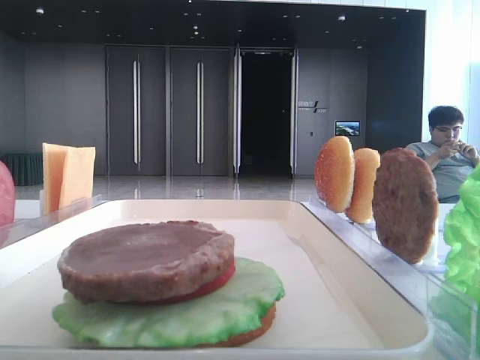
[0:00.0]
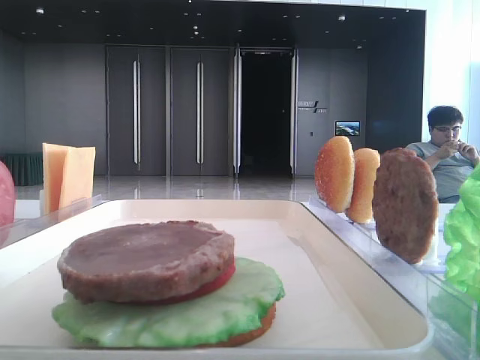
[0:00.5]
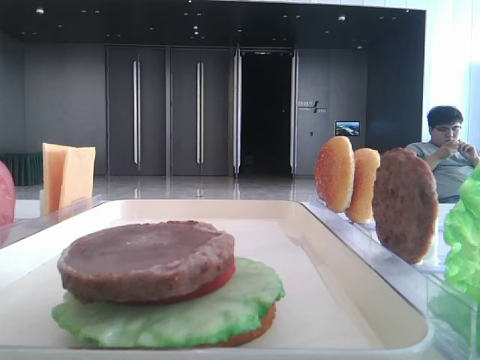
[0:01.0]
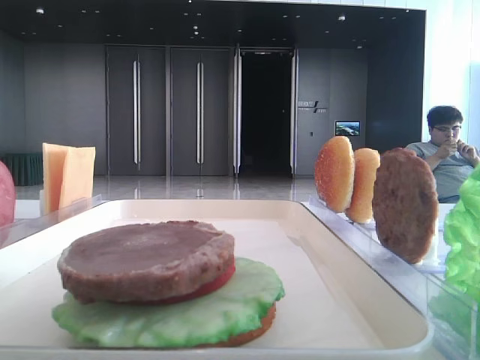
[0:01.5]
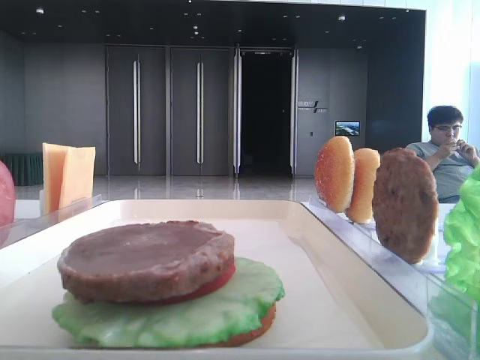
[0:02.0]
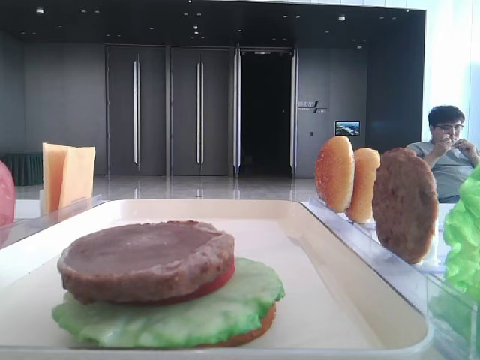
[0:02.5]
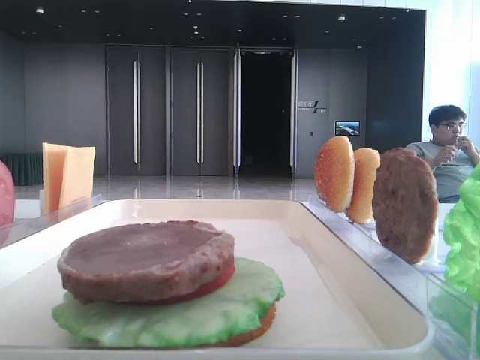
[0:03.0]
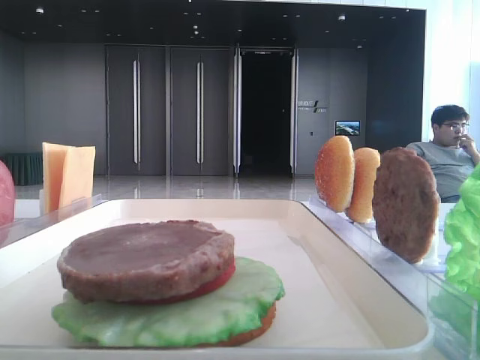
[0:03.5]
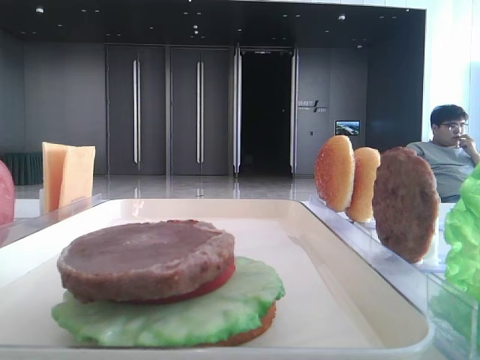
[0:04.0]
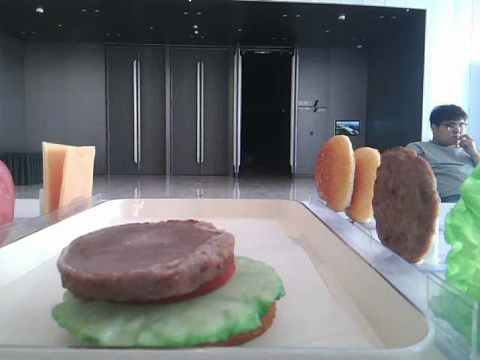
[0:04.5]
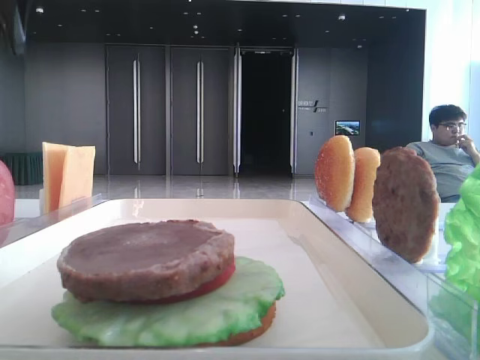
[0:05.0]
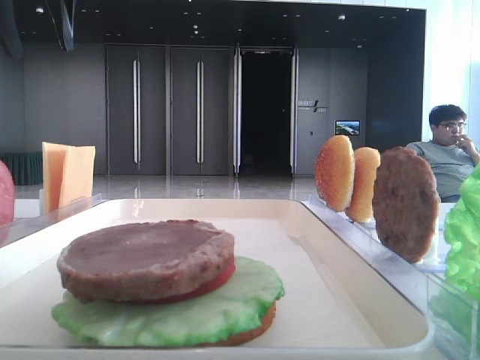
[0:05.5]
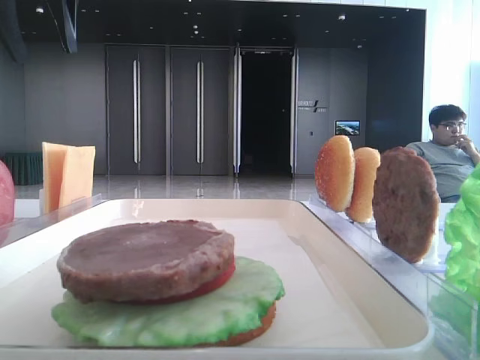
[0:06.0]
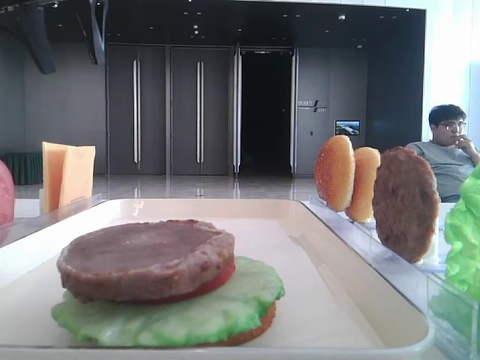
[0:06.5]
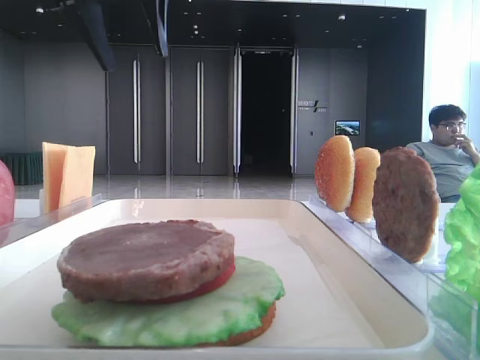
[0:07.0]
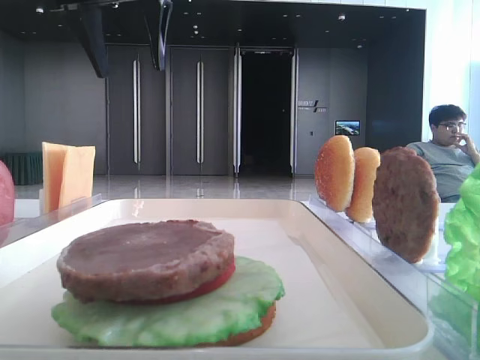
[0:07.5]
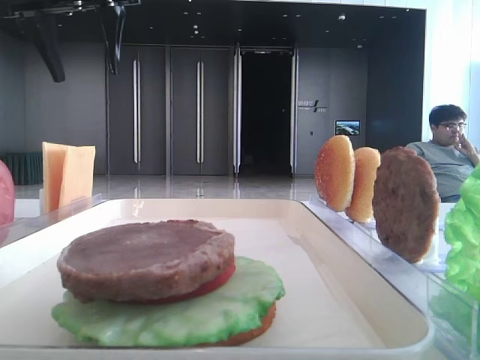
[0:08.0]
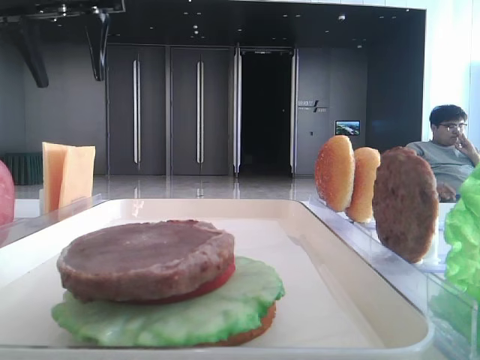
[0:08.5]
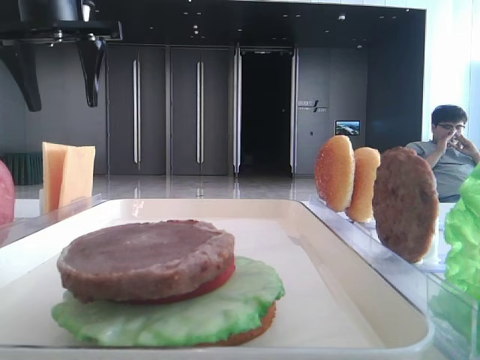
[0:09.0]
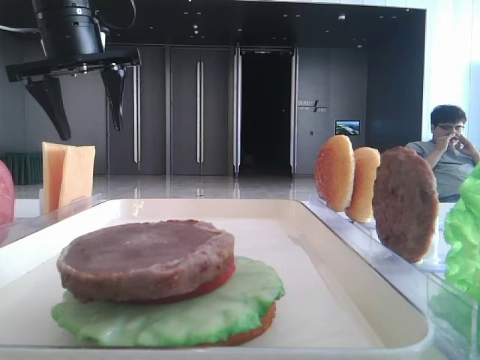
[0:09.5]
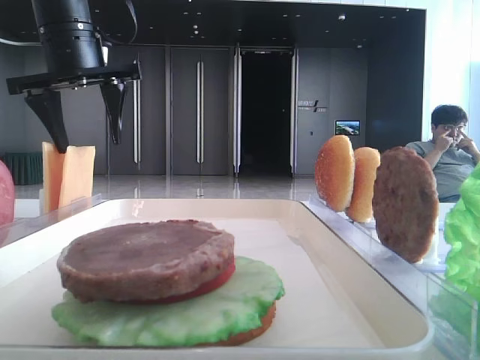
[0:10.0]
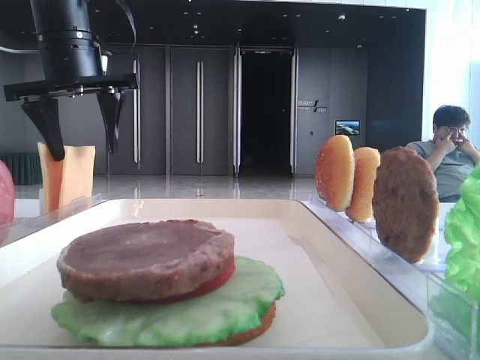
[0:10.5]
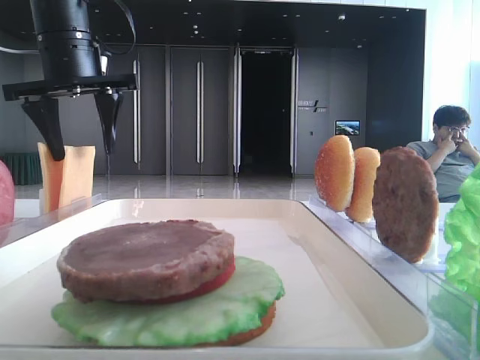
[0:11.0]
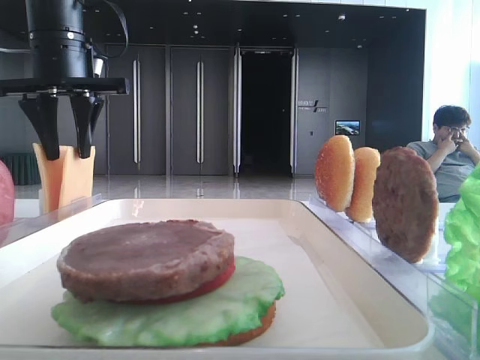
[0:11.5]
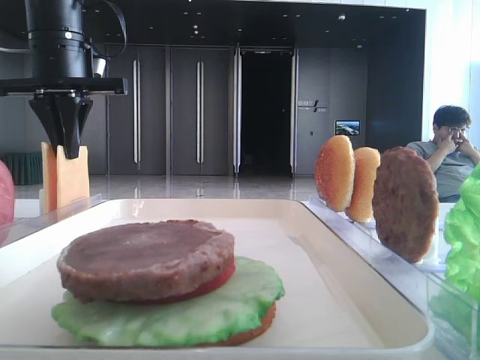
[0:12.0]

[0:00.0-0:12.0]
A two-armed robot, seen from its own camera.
0:02.0 to 0:04.0: The left gripper heads forward, covering approximately 35 cm.
0:06.0 to 0:08.0: The left gripper goes about 5 cm to the right.
0:08.0 to 0:10.0: The left gripper travels downward by approximately 10 cm.
0:10.0 to 0:12.0: The left gripper closes.

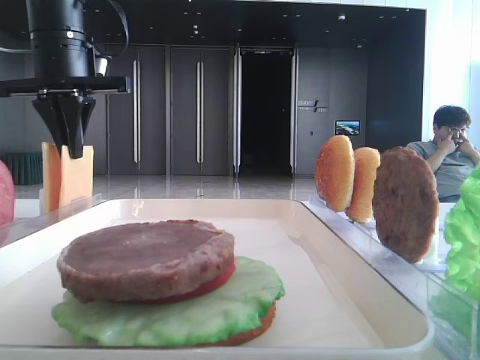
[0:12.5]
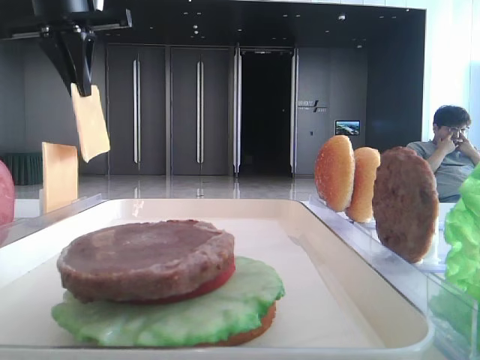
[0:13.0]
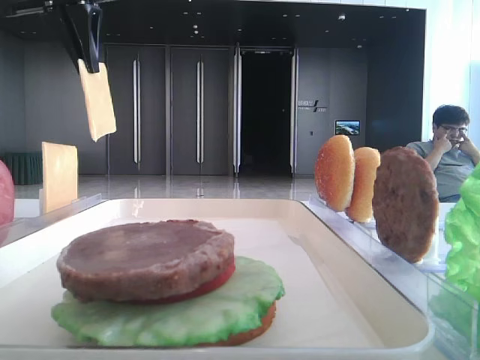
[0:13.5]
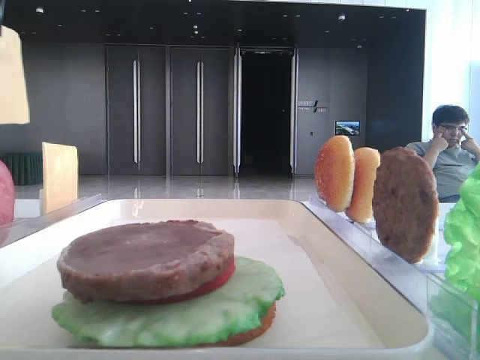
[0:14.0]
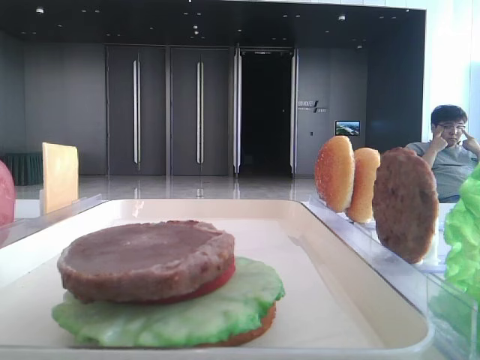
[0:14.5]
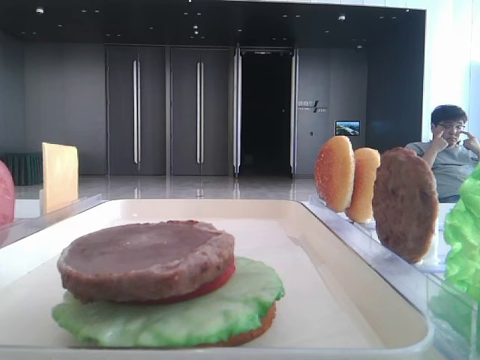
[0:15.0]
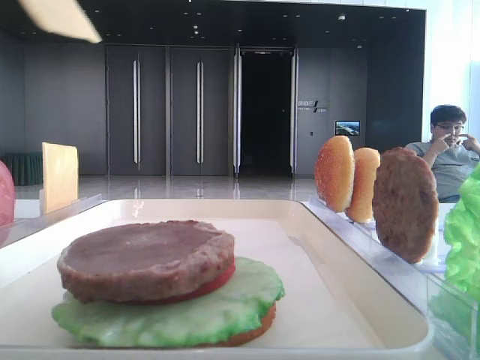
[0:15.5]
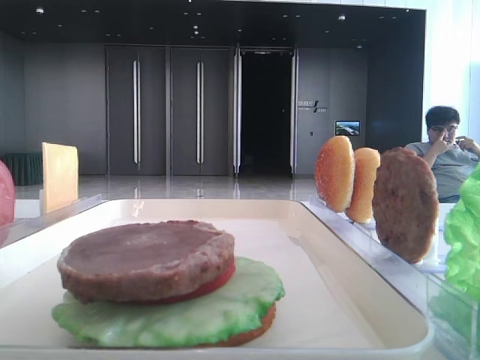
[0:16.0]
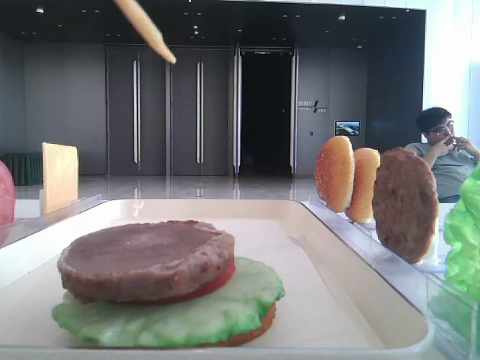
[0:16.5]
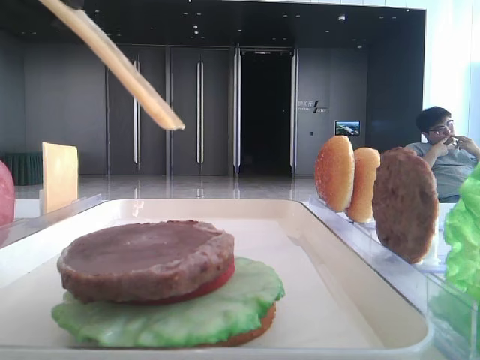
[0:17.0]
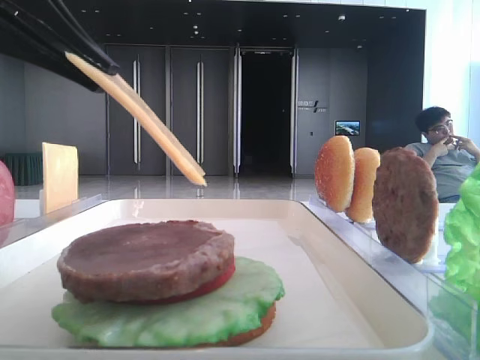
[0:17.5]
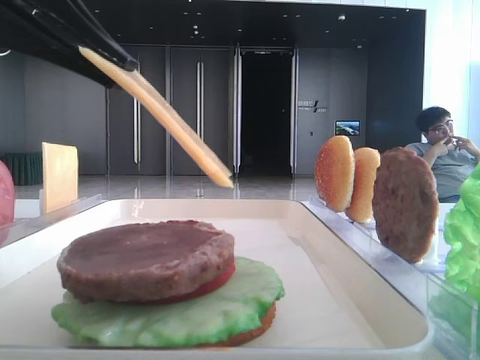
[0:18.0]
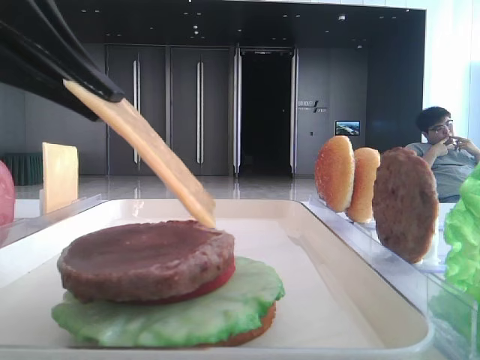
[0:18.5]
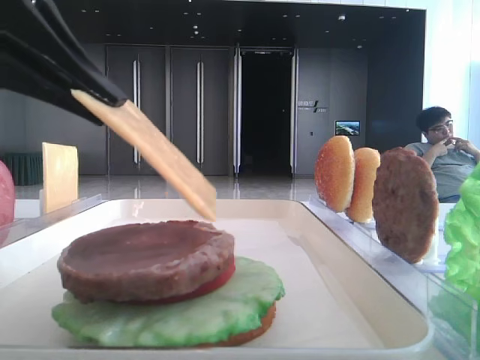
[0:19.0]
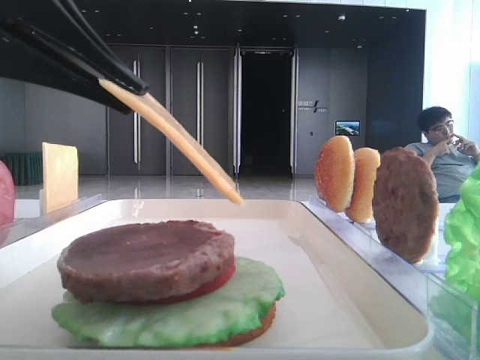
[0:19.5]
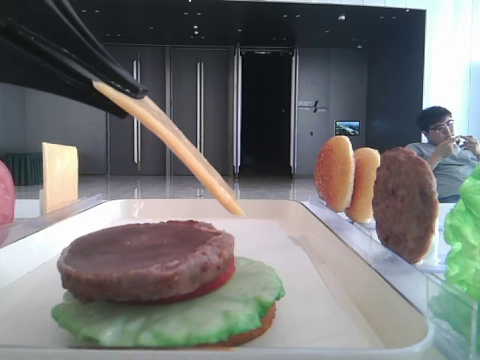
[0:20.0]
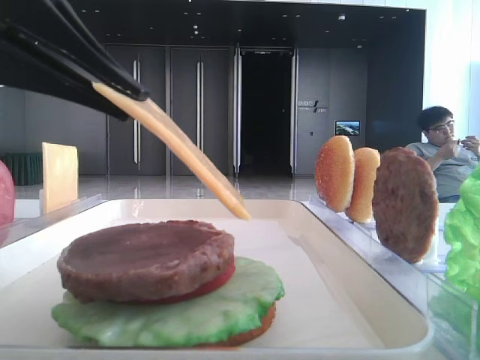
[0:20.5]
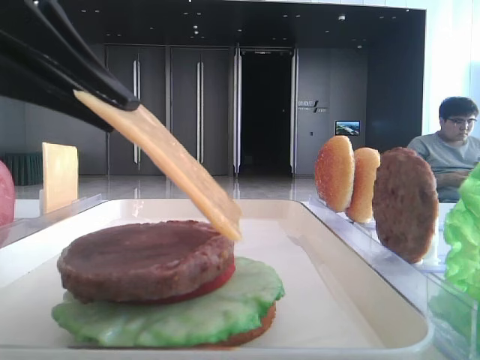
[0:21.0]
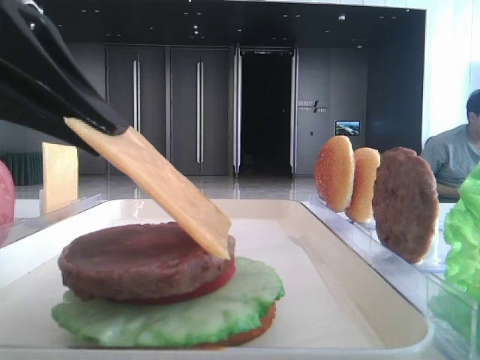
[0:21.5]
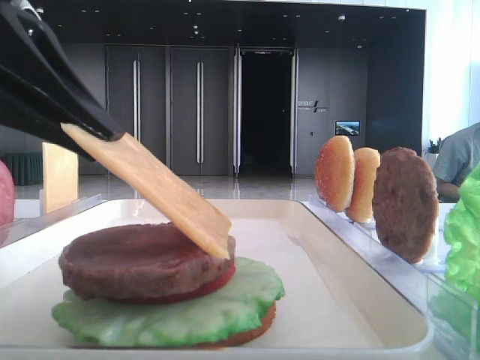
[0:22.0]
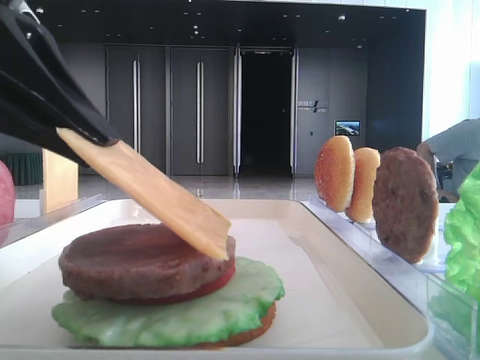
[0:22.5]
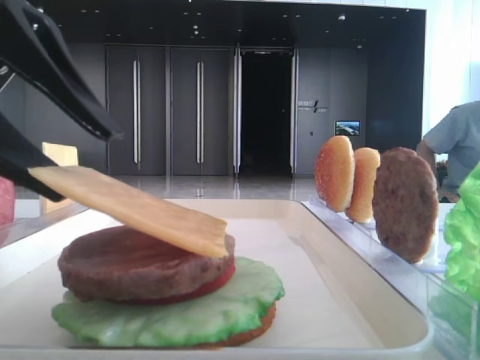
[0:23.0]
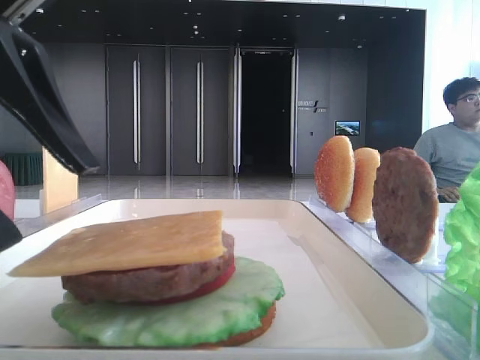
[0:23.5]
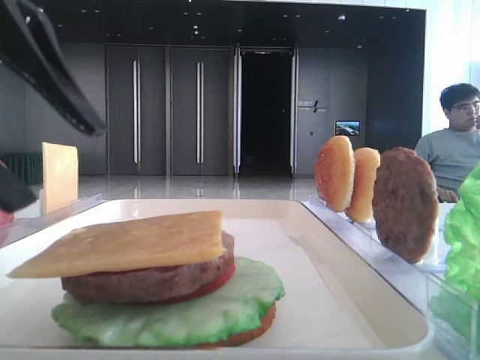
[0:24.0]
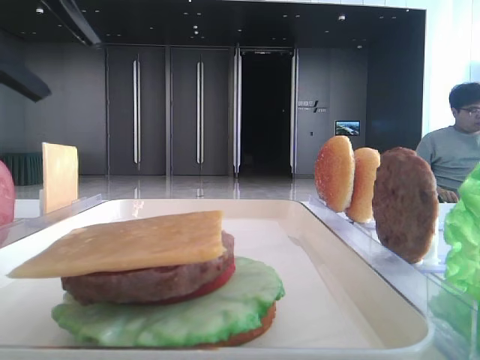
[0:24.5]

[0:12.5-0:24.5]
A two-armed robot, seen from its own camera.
Step, 0:12.5 to 0:23.0: Place the cheese slice on the patty with the left hand.
0:12.5 to 0:14.5: The left gripper travels backward and upward by about 25 cm.
0:14.5 to 0:16.5: The left gripper travels downward and to the right by approximately 10 cm.
0:16.5 to 0:18.5: The left gripper shifts some 10 cm downward.
0:18.5 to 0:22.5: There are only small adjustments of the grippers.
0:22.5 to 0:24.5: The left gripper moves upward, roughly 5 cm, and opens.

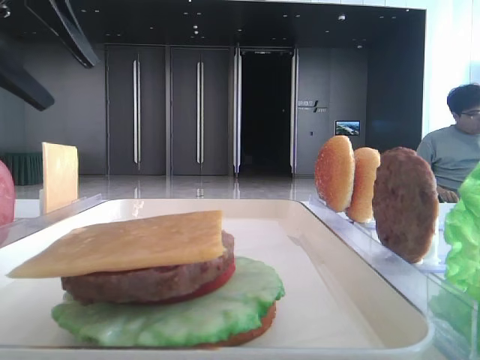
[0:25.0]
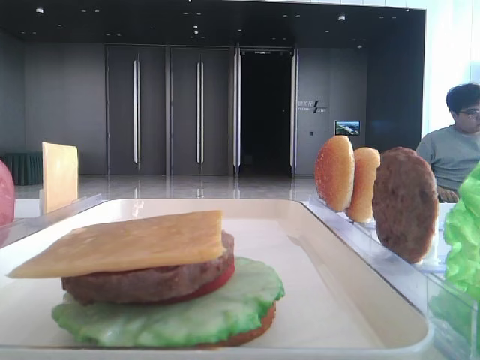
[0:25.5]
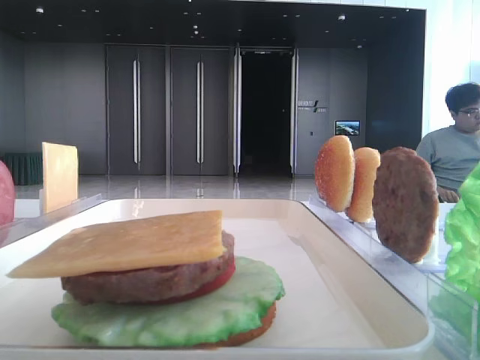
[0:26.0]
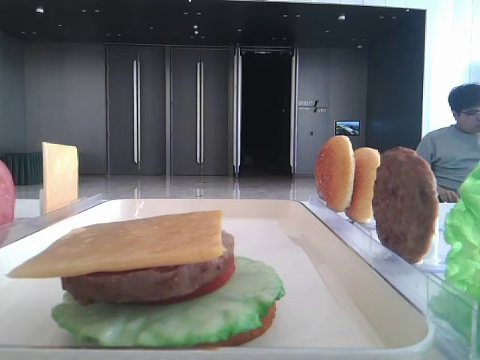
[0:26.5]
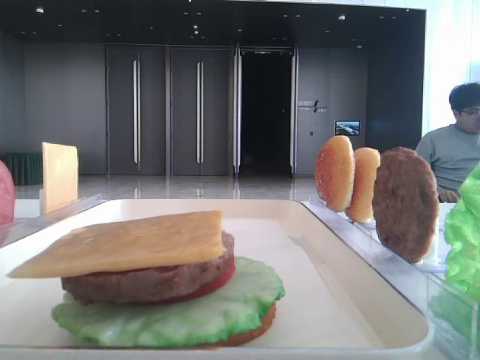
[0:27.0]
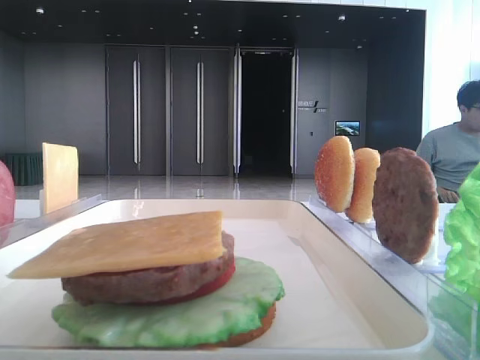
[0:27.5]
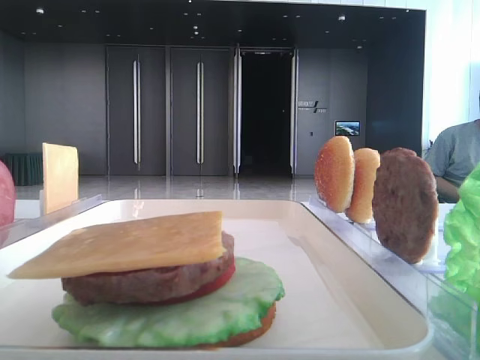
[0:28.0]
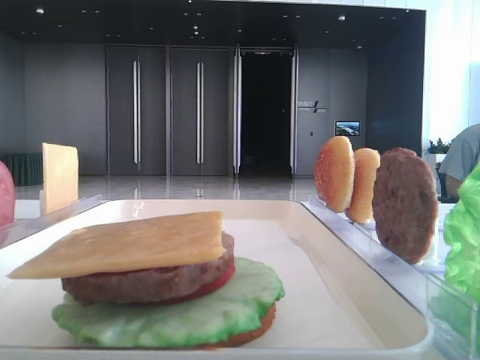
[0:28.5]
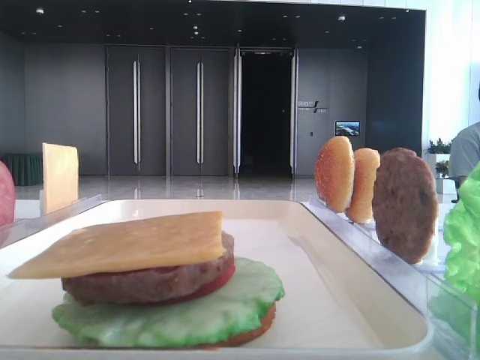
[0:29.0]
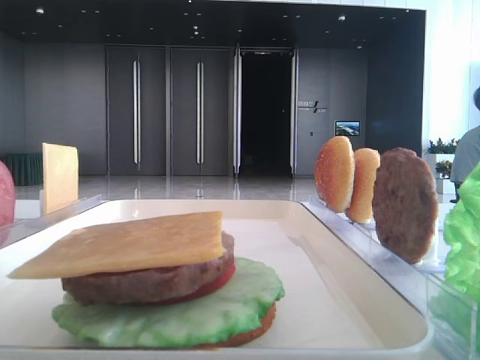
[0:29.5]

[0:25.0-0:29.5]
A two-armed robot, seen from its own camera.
0:25.0 to 0:27.0: The left gripper shifts approximately 25 cm to the left and upward.
